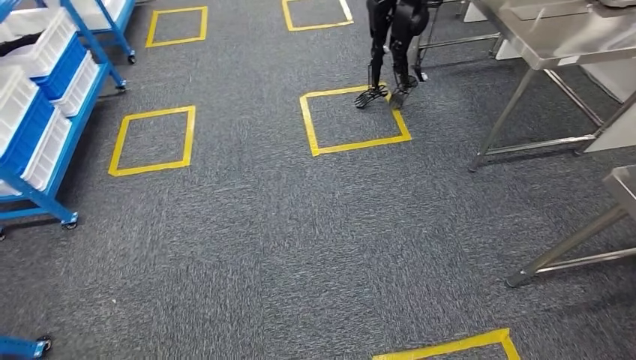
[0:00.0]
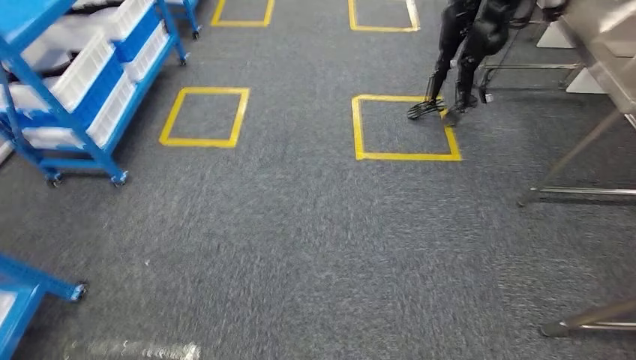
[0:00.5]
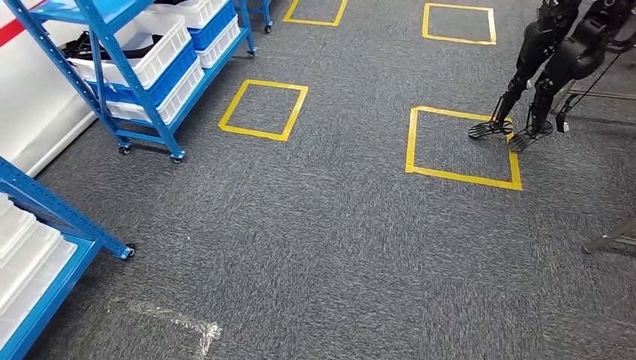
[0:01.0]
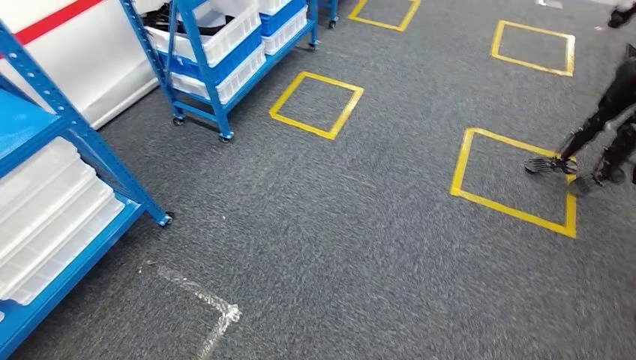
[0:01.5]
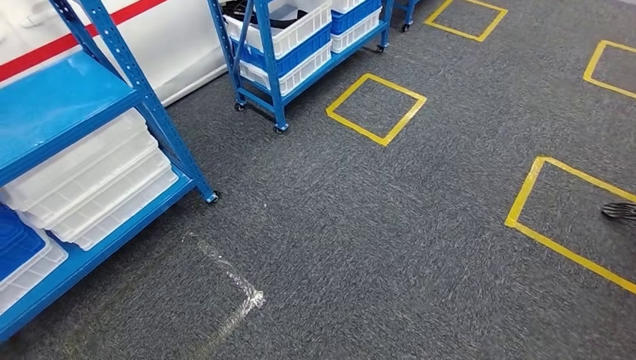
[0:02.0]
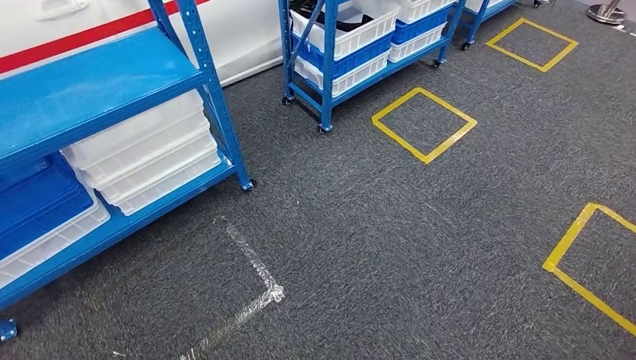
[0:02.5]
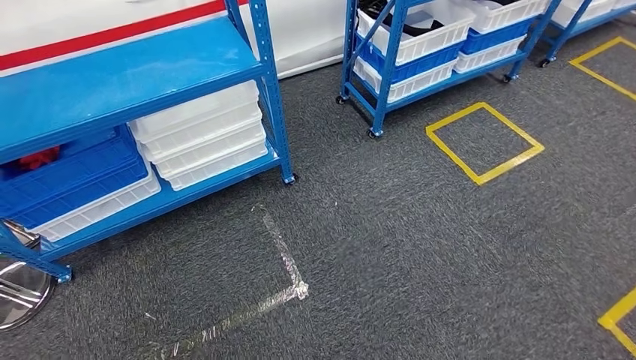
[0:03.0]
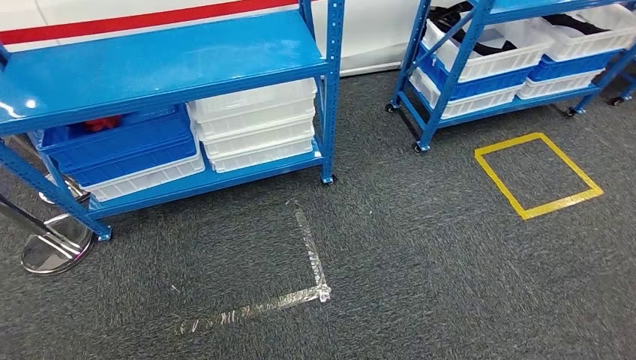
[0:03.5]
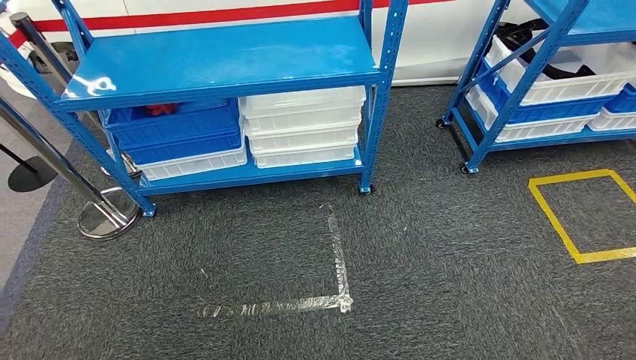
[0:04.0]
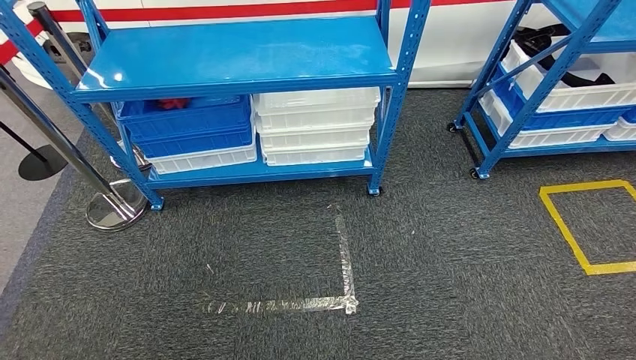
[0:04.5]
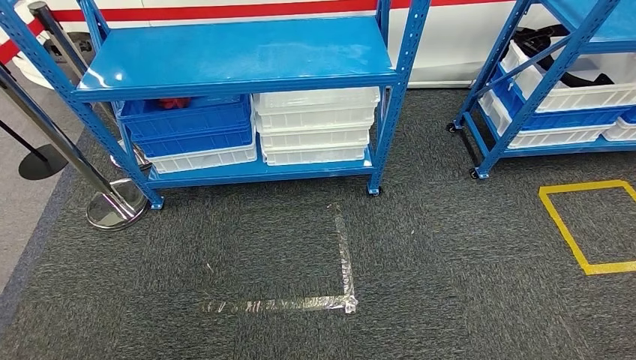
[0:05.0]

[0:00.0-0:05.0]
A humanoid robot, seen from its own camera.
Step, 0:00.0 to 0:05.0: Move to the initial position of the shelf.

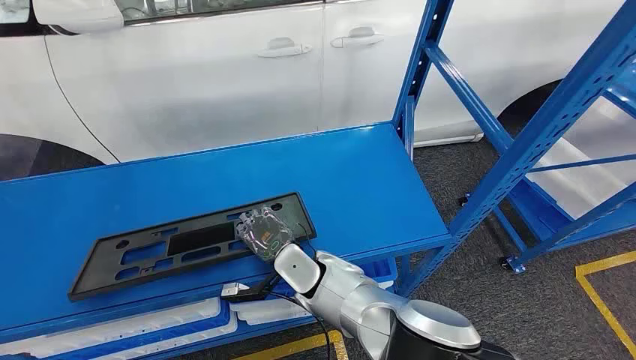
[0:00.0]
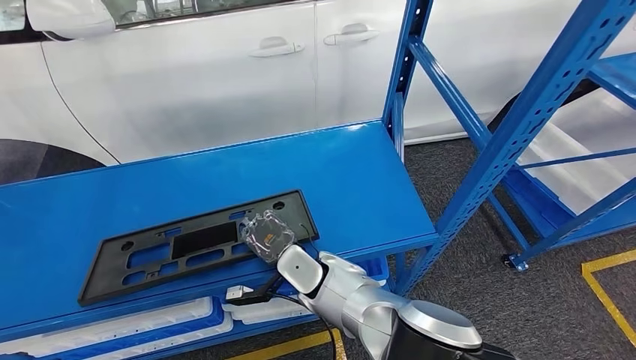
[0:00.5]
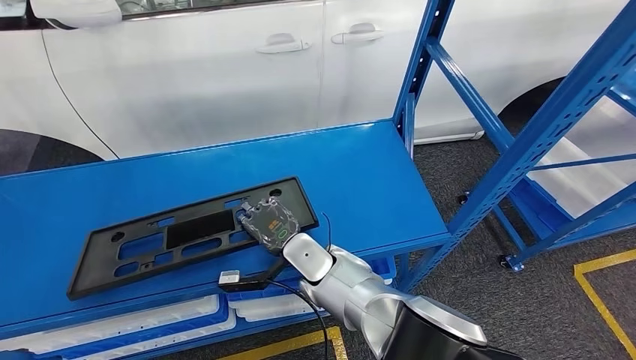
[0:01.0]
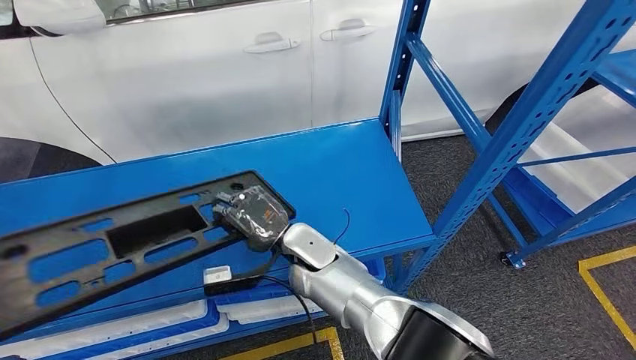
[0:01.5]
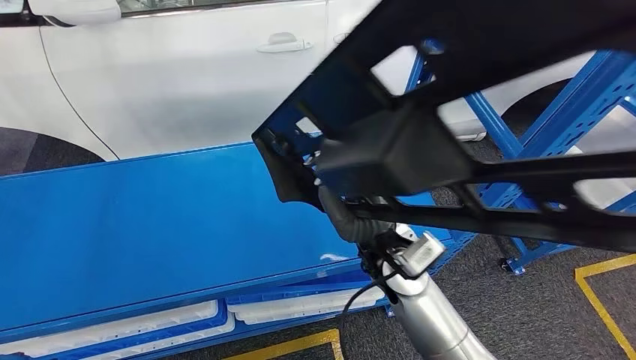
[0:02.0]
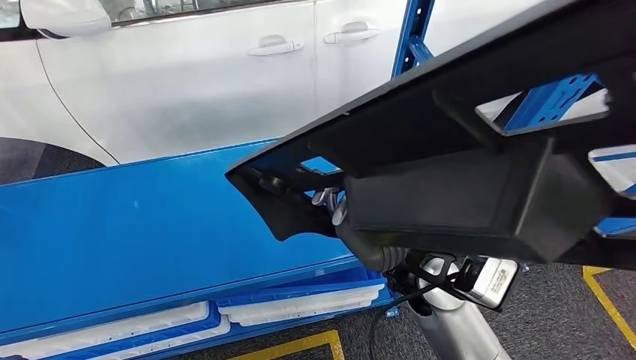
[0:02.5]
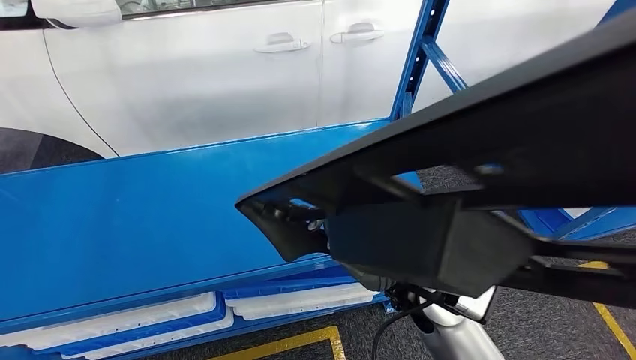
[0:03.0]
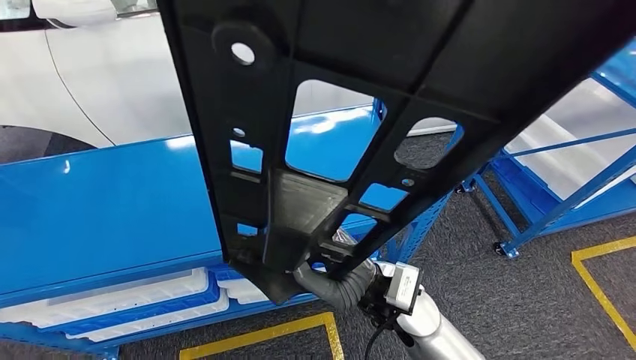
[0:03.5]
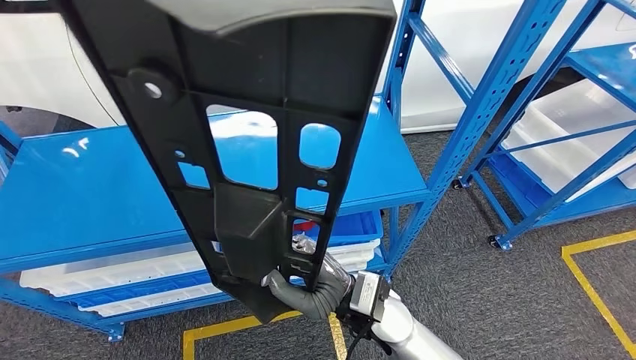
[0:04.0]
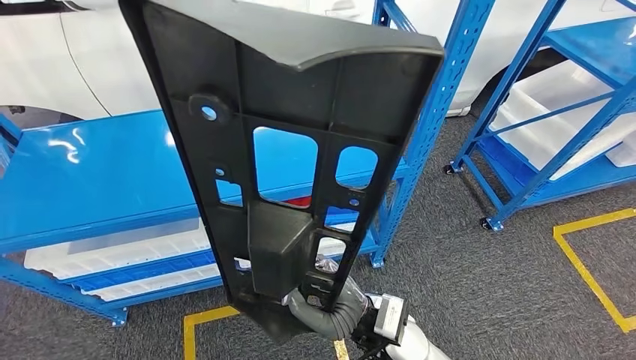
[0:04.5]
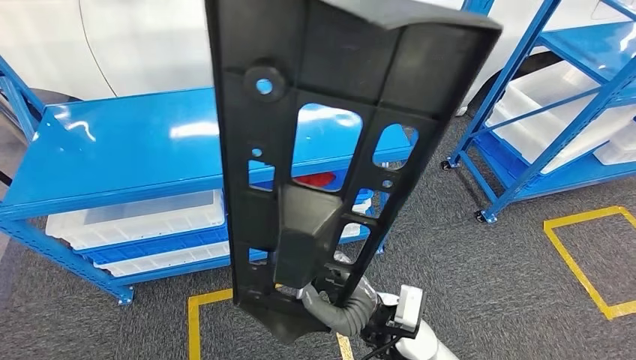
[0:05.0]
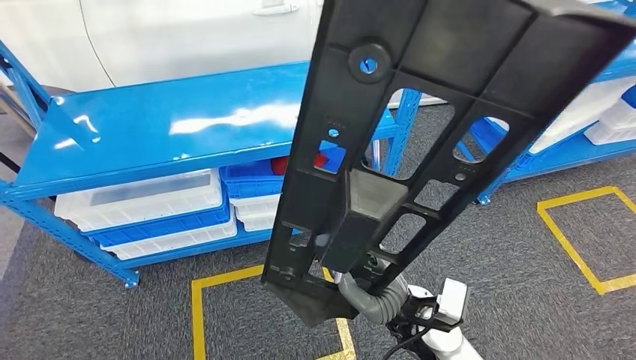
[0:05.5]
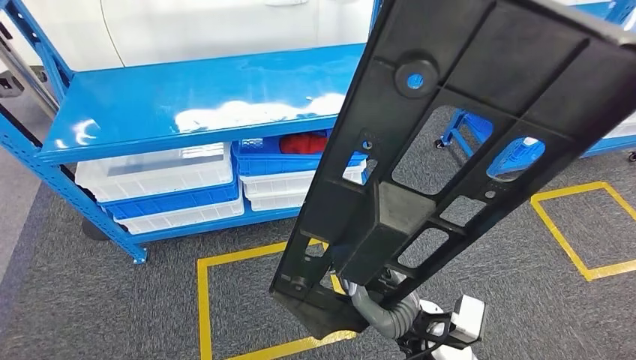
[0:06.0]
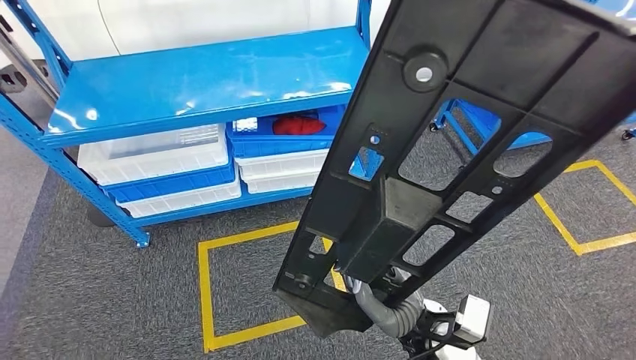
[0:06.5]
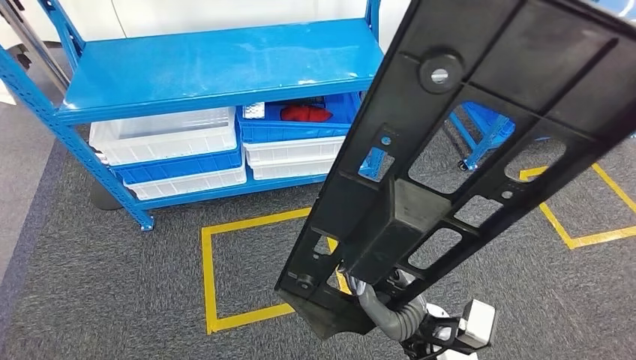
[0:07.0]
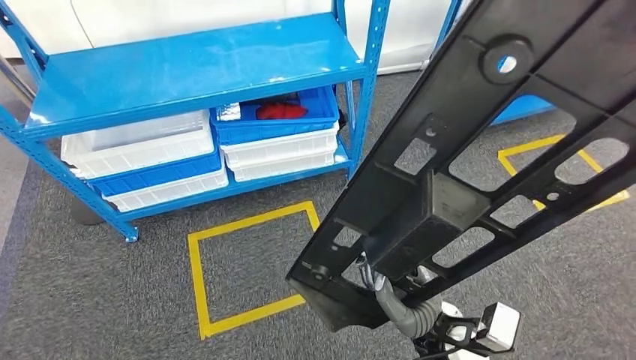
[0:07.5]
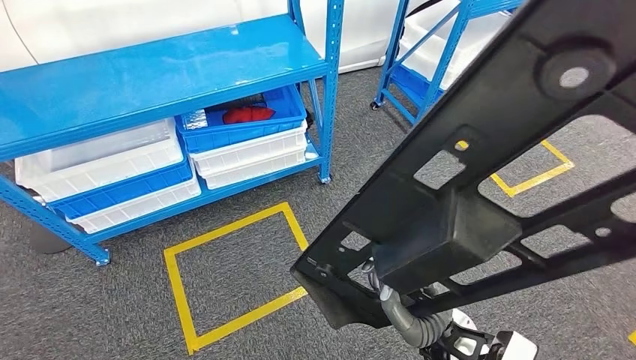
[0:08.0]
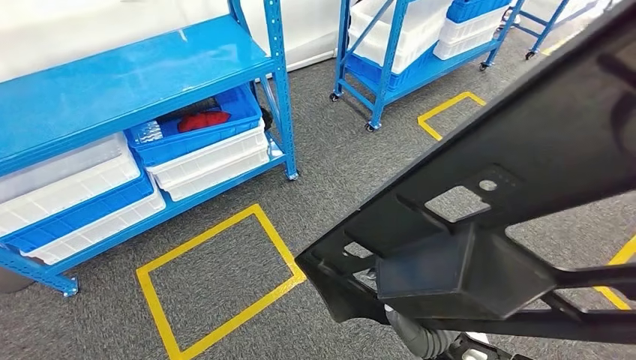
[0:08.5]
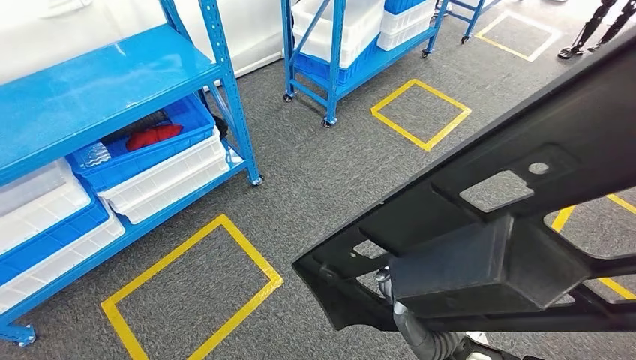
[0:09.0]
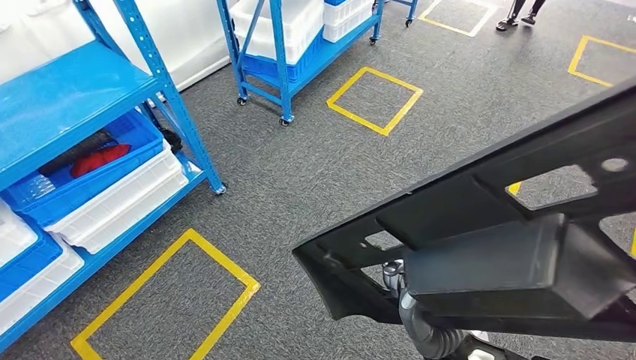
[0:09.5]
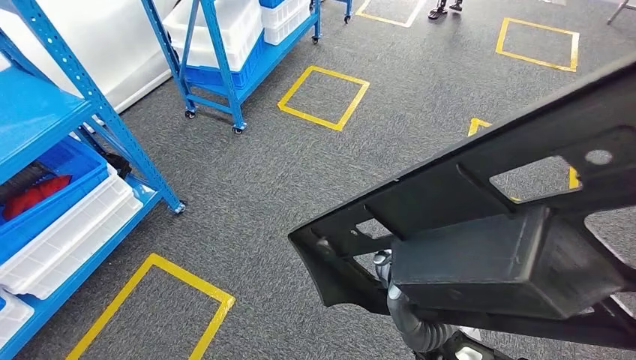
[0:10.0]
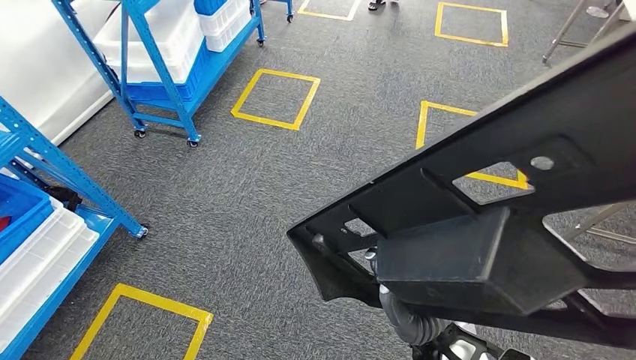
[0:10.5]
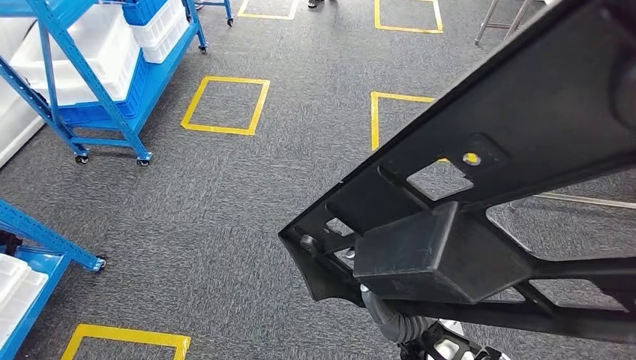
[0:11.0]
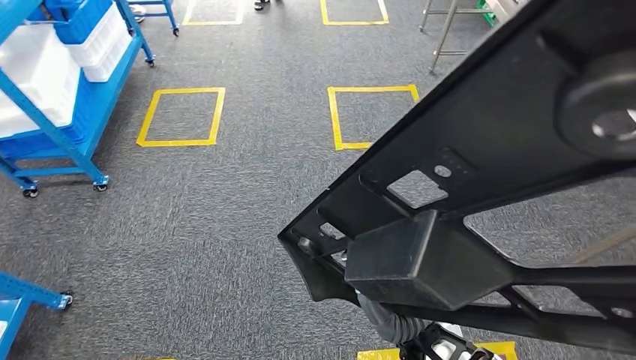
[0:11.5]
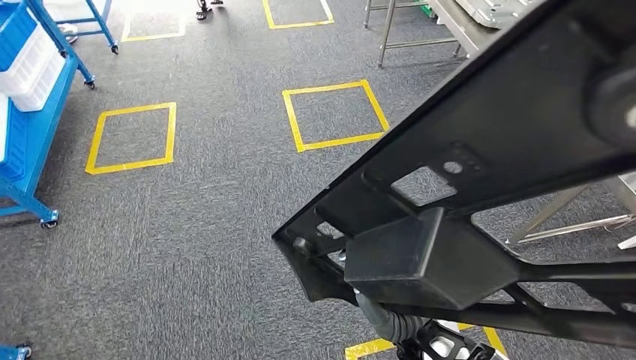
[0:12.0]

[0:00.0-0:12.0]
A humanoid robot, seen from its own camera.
Step, 0:00.0 to 0:02.5: Pick up the large material from the shelf.

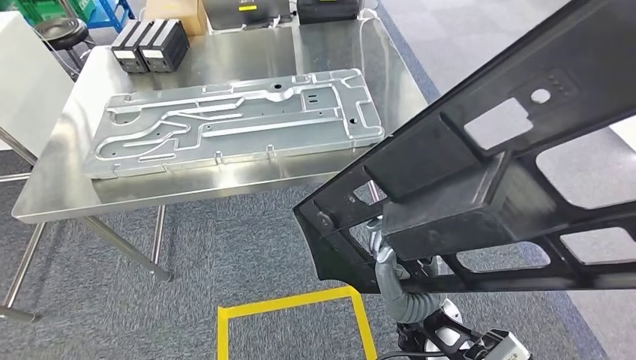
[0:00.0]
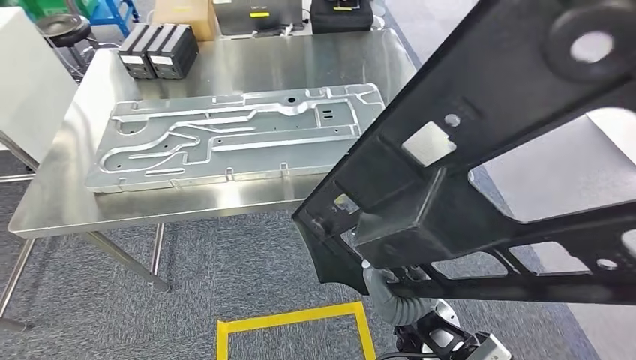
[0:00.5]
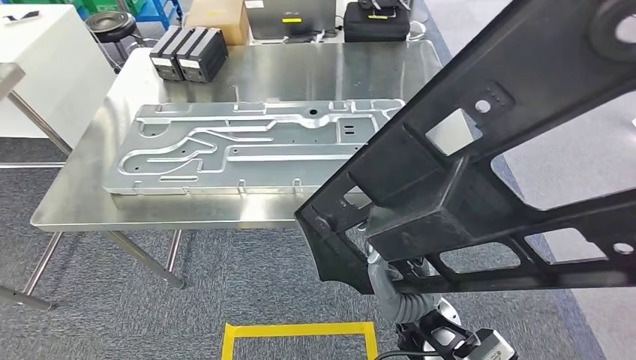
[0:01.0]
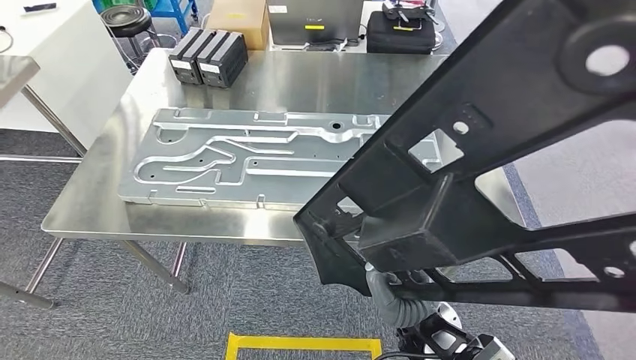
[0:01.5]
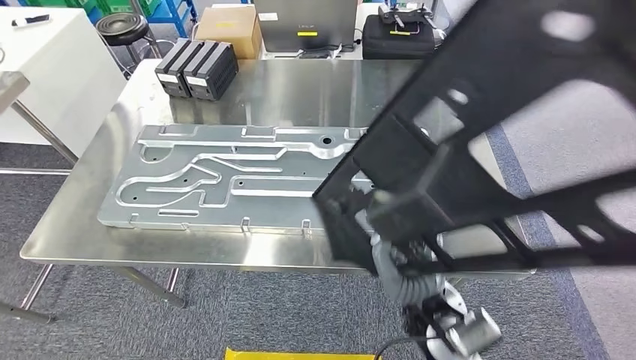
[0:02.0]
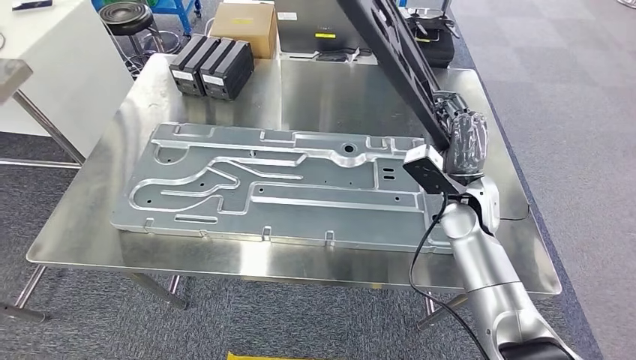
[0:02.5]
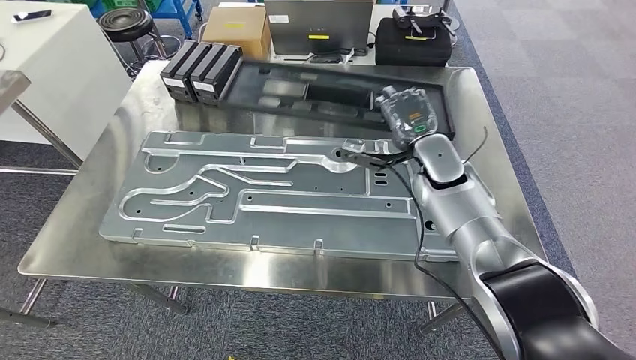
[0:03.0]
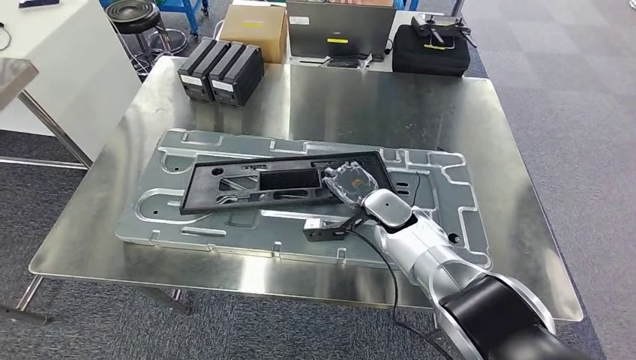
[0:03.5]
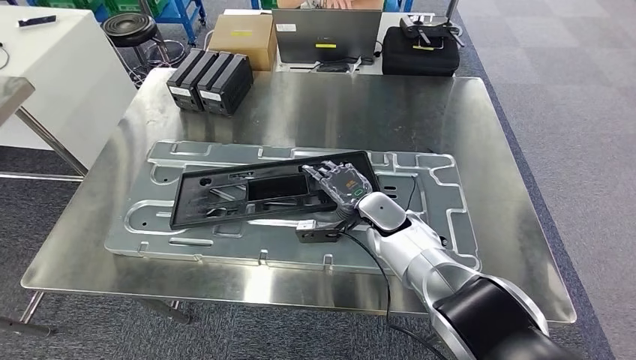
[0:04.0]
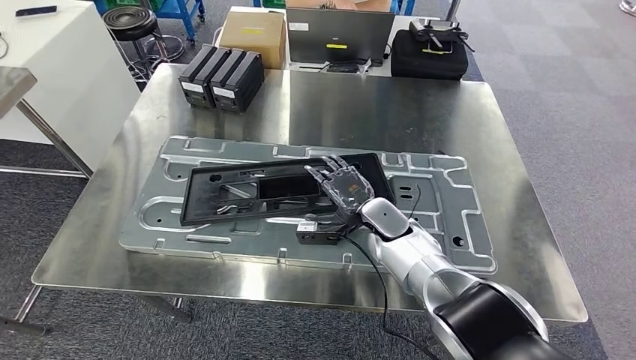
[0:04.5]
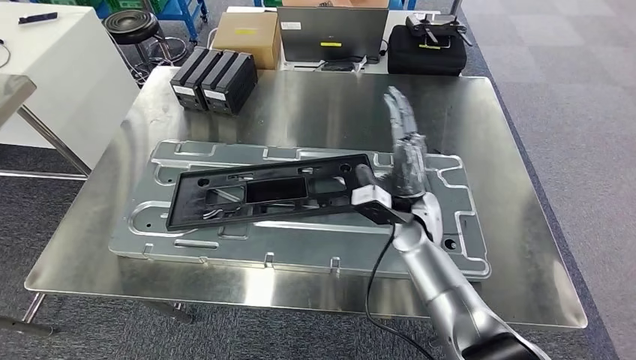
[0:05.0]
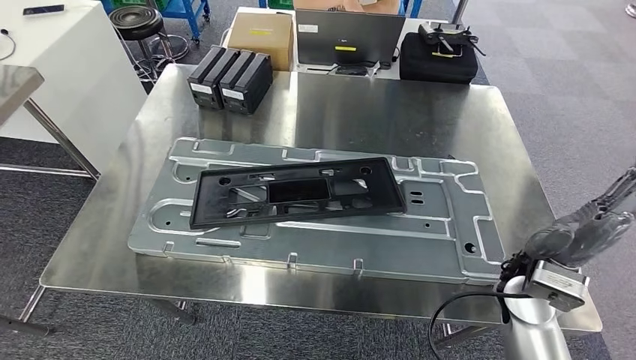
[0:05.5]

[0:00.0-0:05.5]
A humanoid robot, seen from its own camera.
Step, 0:00.0 to 0:02.5: Move the large material to the workbench.
